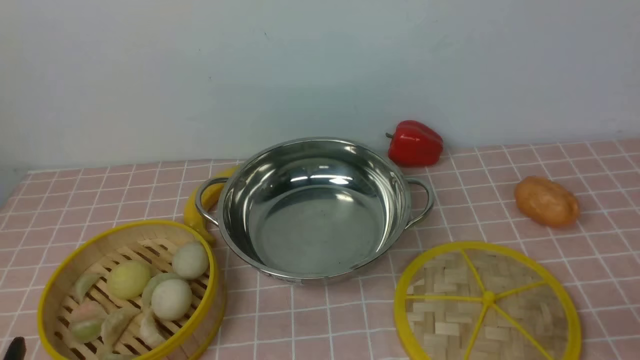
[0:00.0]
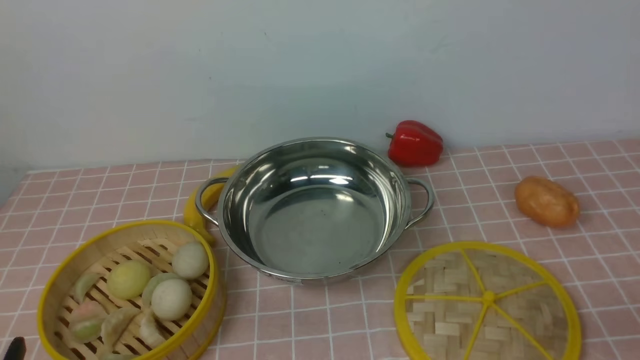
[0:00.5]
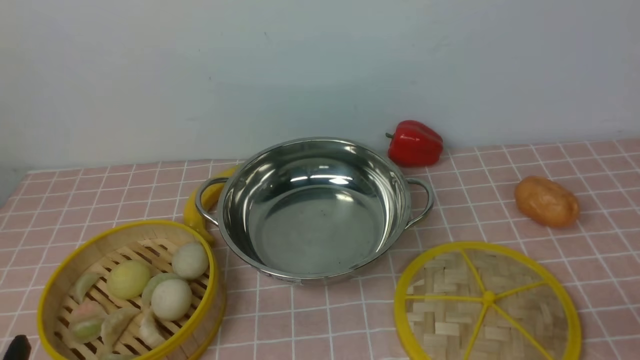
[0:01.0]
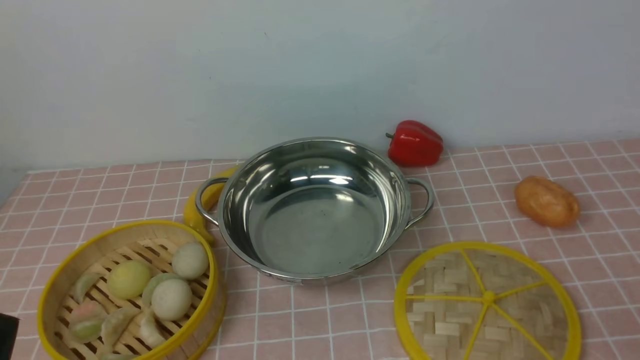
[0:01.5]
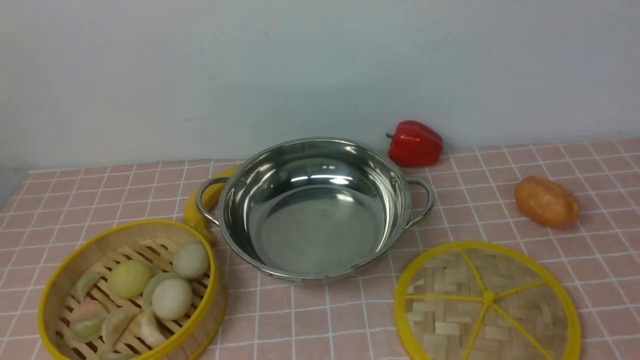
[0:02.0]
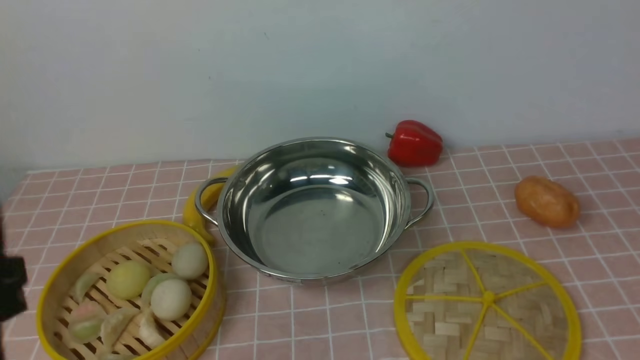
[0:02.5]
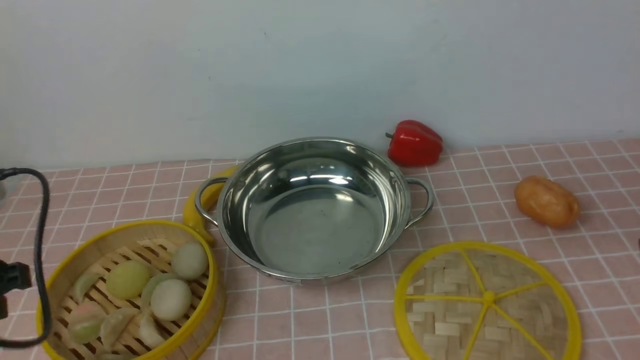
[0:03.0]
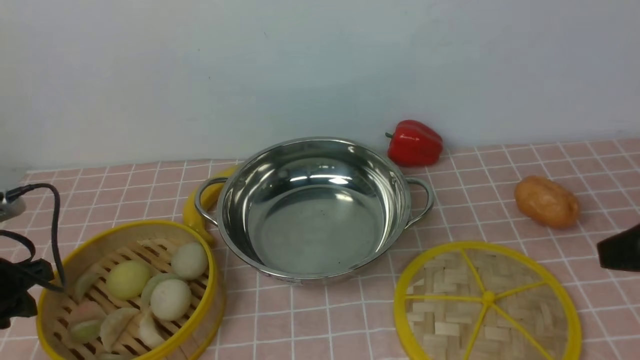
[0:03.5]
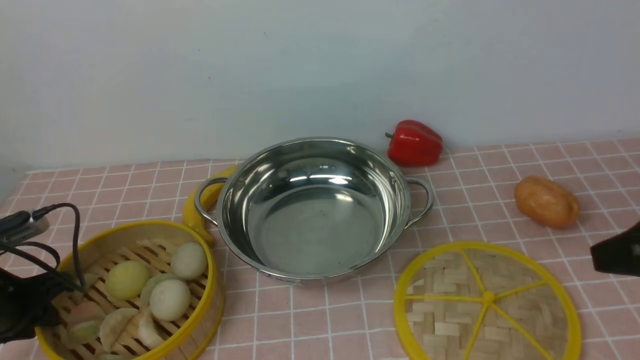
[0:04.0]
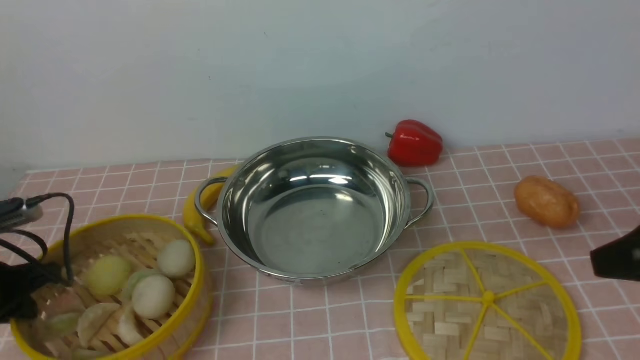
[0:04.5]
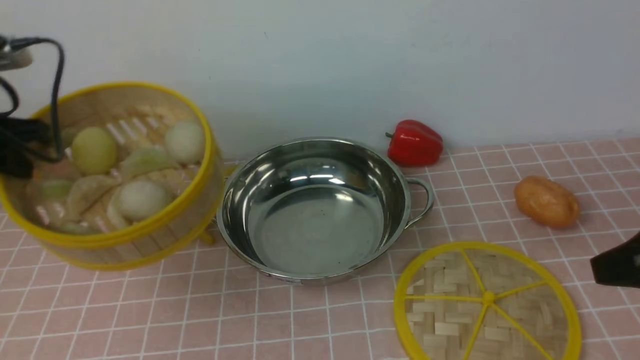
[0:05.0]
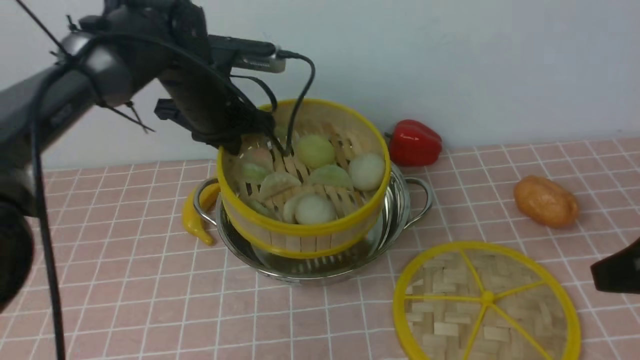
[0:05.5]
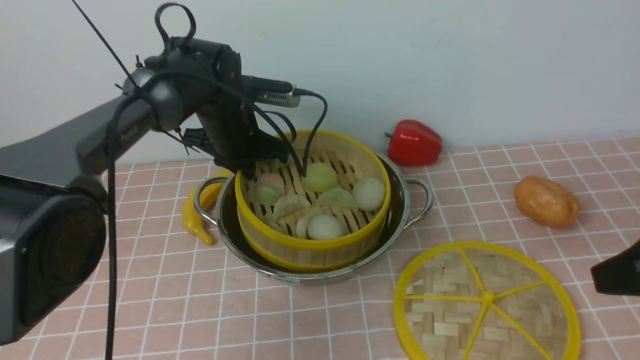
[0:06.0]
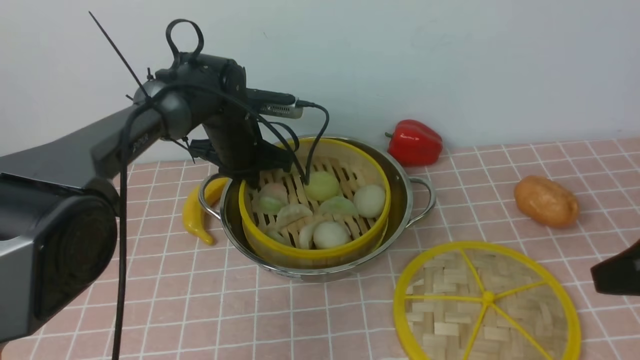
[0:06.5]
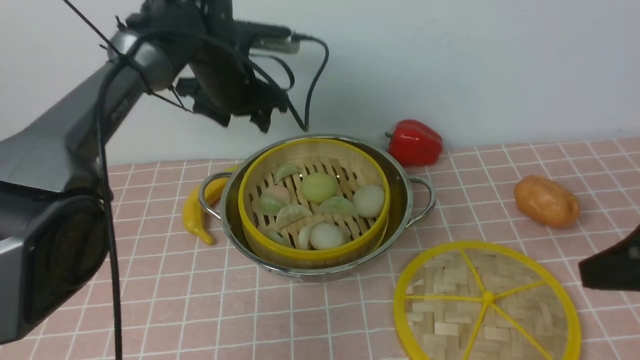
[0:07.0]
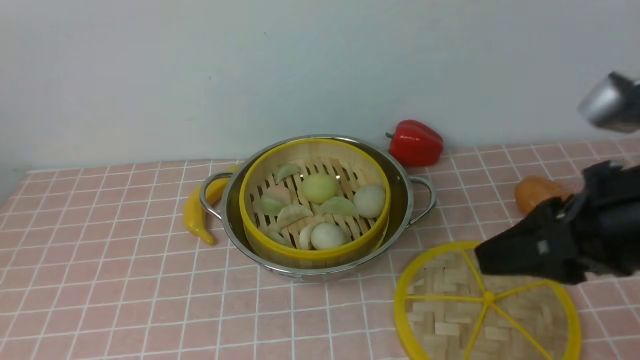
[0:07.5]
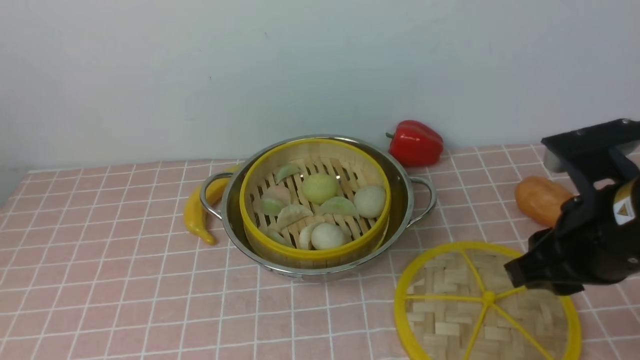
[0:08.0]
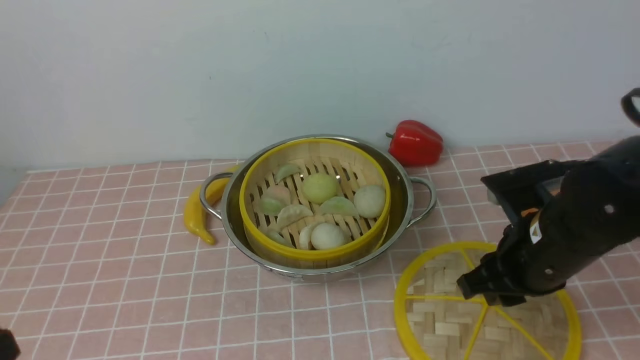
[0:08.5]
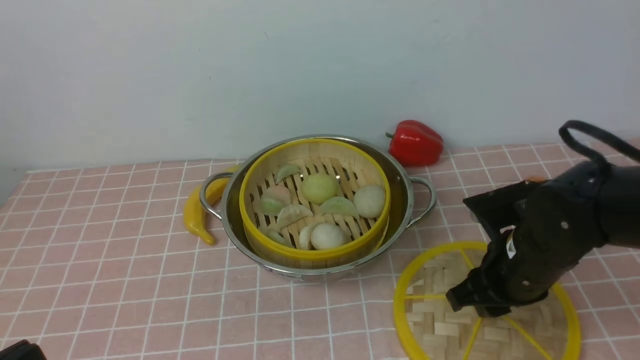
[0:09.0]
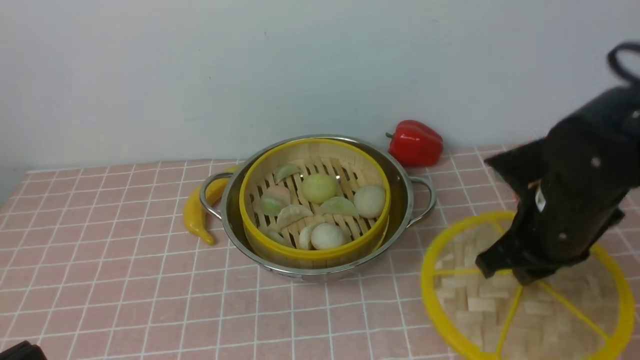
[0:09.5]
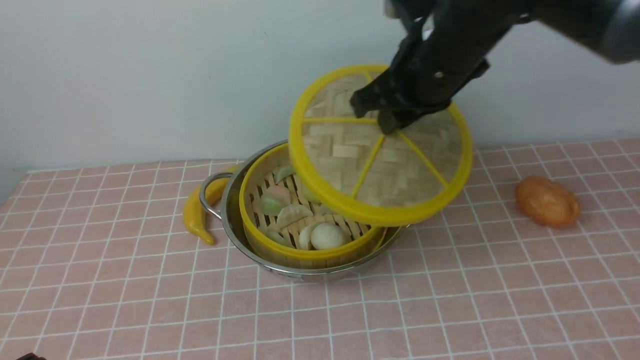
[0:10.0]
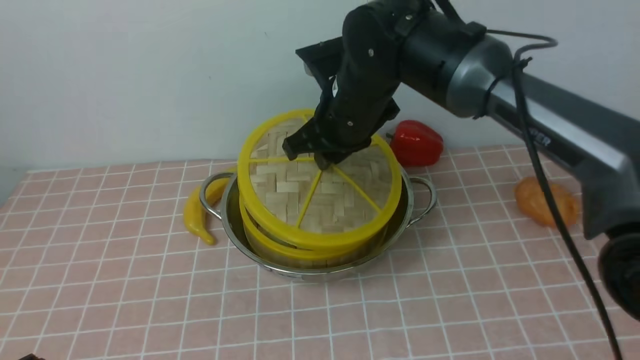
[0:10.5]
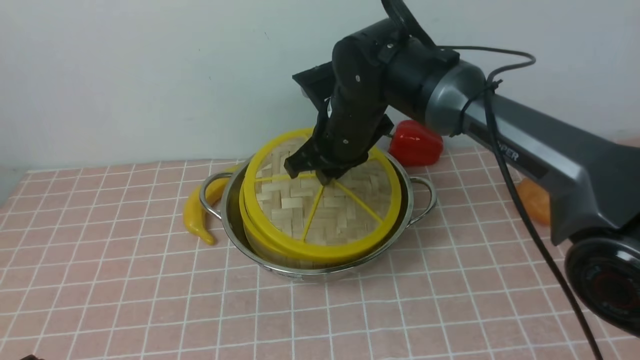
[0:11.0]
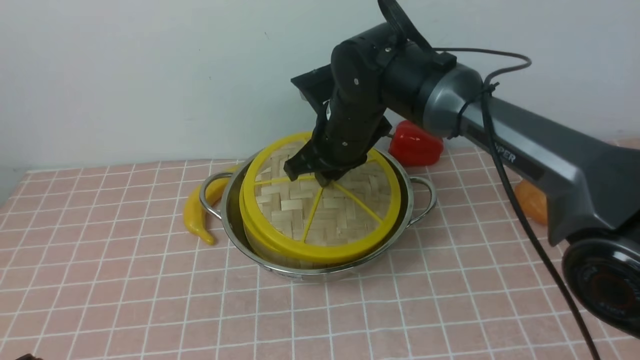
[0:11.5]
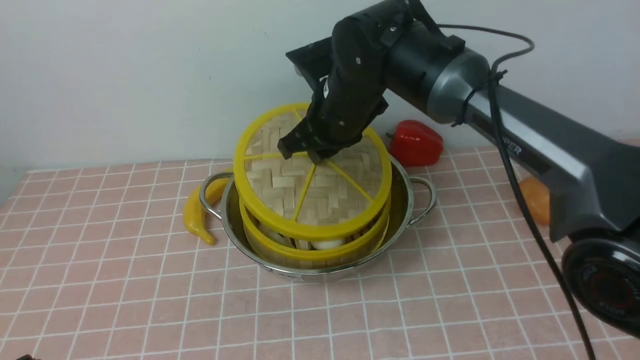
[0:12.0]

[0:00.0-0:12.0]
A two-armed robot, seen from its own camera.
Task of the whole recording: place the steamer in the pot on the pink tablecloth, and put the lid on the steamer.
Step, 0:00.0 to 0:04.5: use the left arm to lift the steamer closest to it.
Step, 0:05.0 to 0:06.5: use the left arm to put the steamer into the iron steamer pot in the middle.
Step, 0:07.0 to 0:09.0: use the right arm to lift the lid of the steamer.
0:02.0 to 0:04.0: The left gripper heads forward and downward, covering about 30 cm. Meanwhile the right gripper travels forward by some 15 cm.
0:04.0 to 0:06.0: The left gripper moves to the right and forward, roughly 30 cm, and closes up.
0:06.0 to 0:08.0: The left gripper travels backward and upward by some 50 cm, and opens and closes again, while the right gripper shifts approximately 5 cm to the left.
0:08.0 to 0:10.0: The right gripper shifts about 15 cm forward, to the left and upward; the left gripper goes roughly 30 cm downward.
0:10.0 to 0:12.0: The right gripper heads to the left, downward and forward, covering some 15 cm.

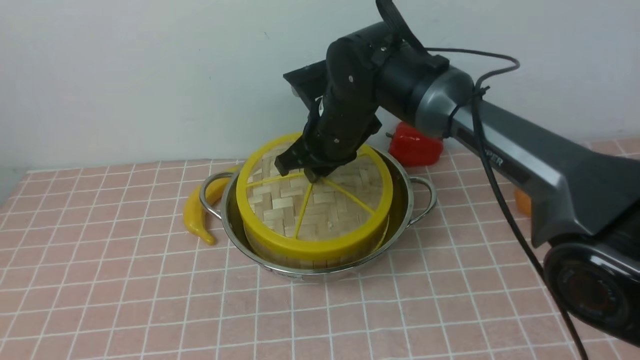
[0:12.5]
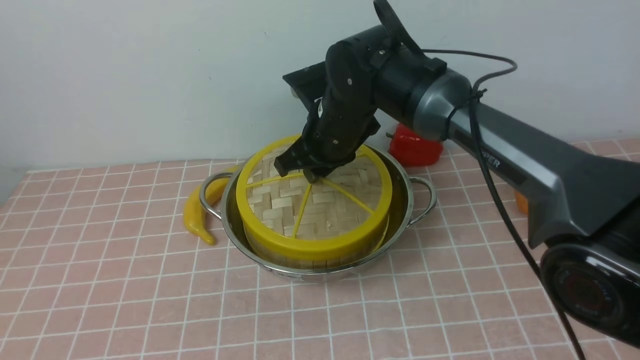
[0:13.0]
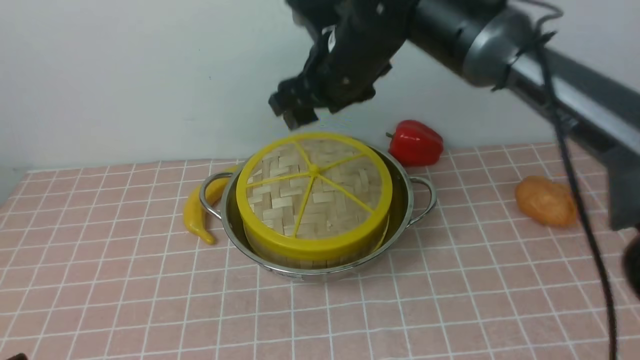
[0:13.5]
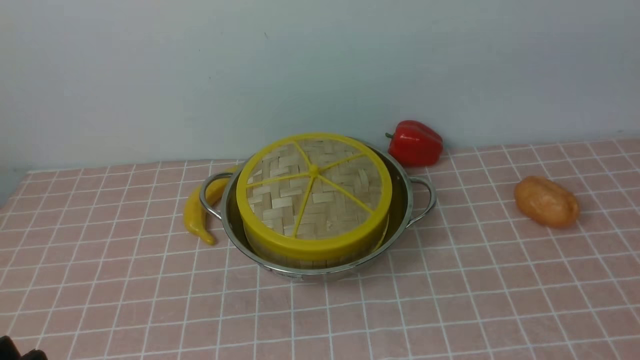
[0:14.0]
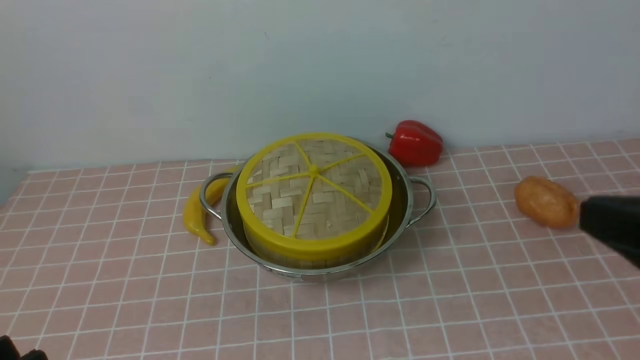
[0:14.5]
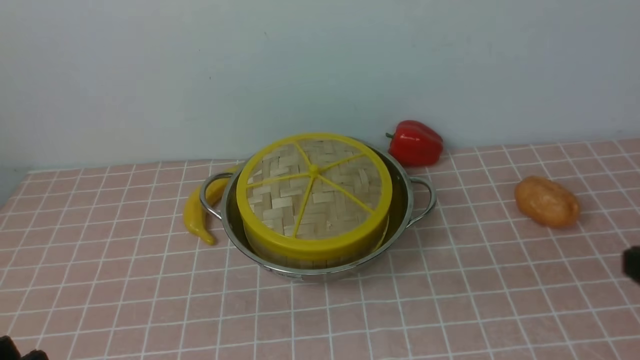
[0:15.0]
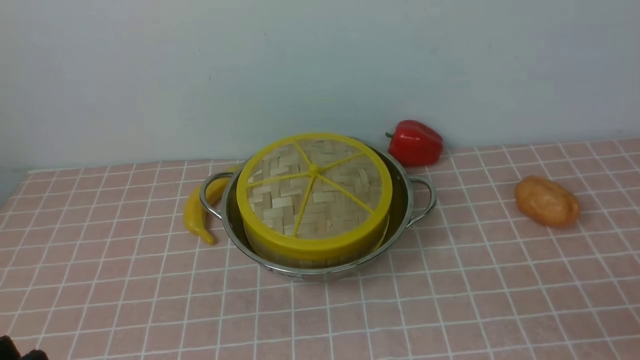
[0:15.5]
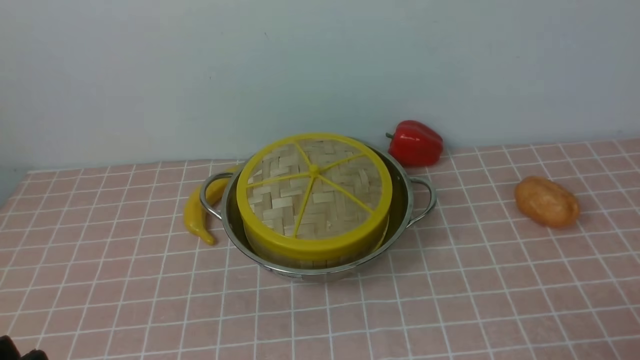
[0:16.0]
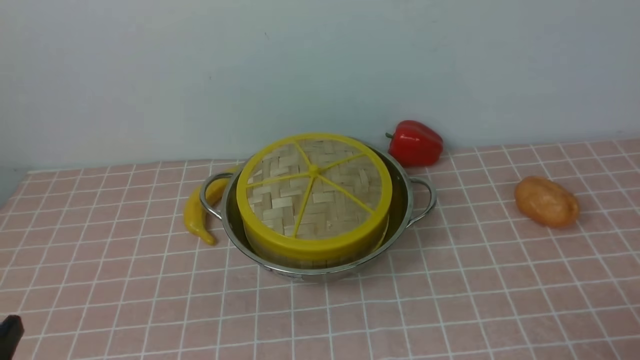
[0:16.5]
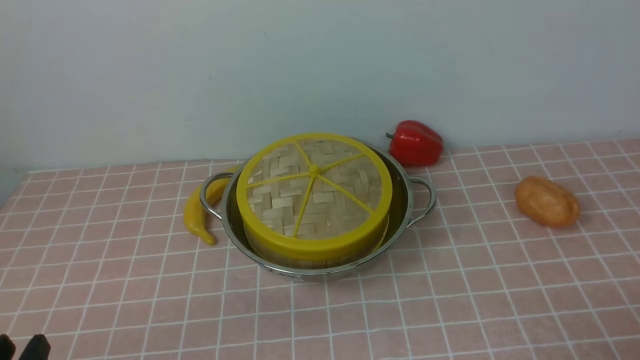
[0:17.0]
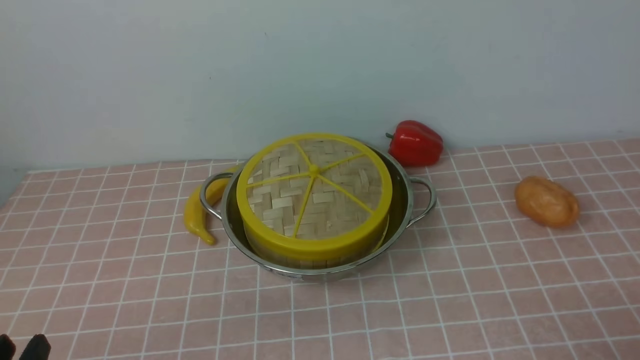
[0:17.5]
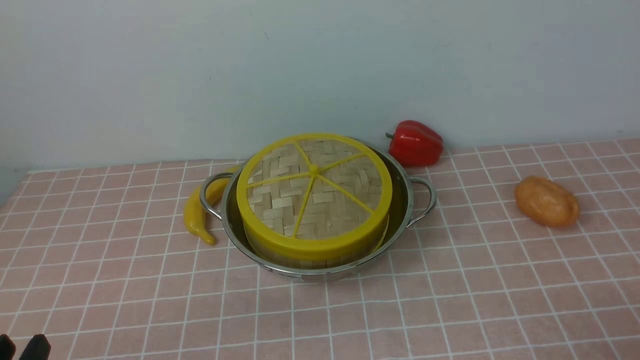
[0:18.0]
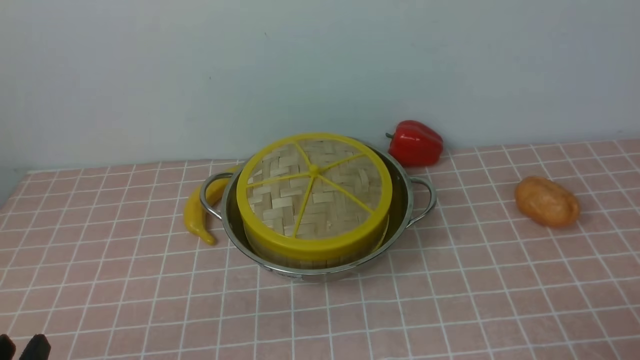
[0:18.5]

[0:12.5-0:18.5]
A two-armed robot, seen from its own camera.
Task of the whole recording: place the steamer in the pot on the pink tablecloth, and put the lid on the steamer.
0:12.5 to 0:14.5: The left gripper opens its fingers, while the right gripper is displaced backward, to the right and upward by about 40 cm, and opens, then closes again.
0:14.5 to 0:16.5: The right gripper heads downward and to the right, covering approximately 20 cm.

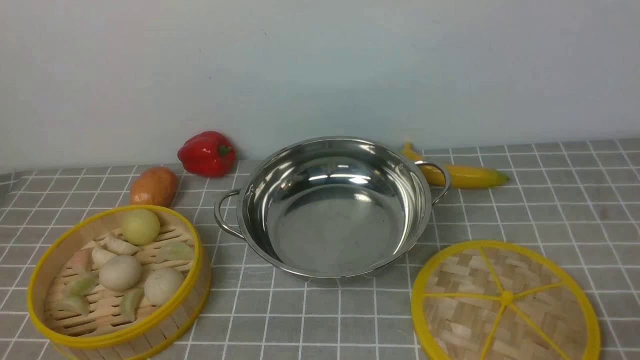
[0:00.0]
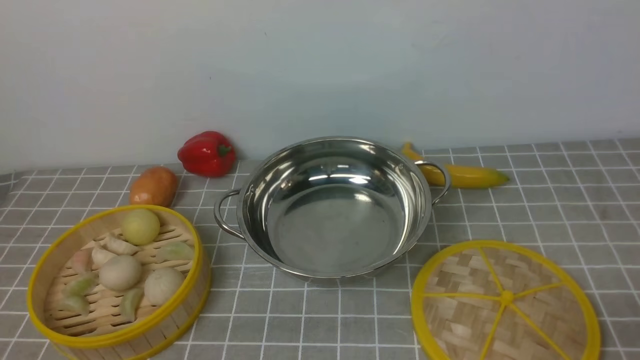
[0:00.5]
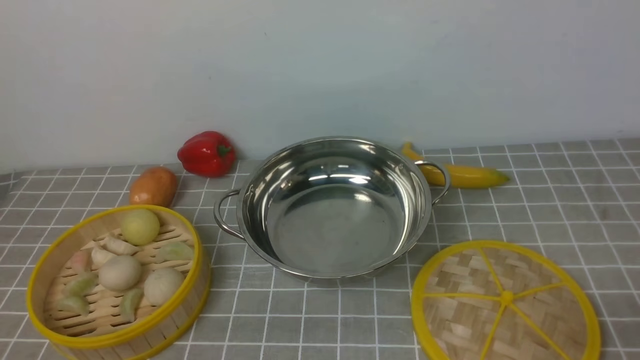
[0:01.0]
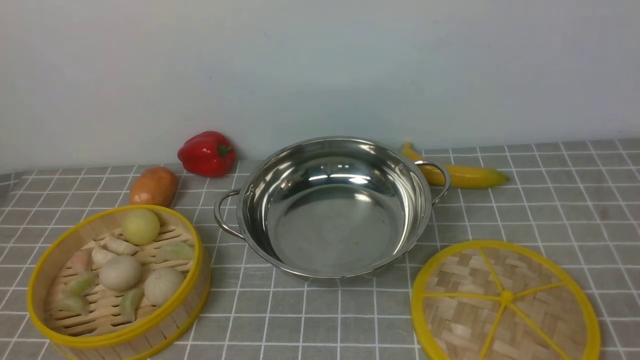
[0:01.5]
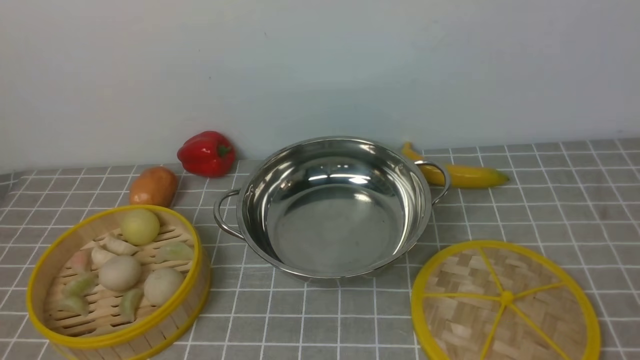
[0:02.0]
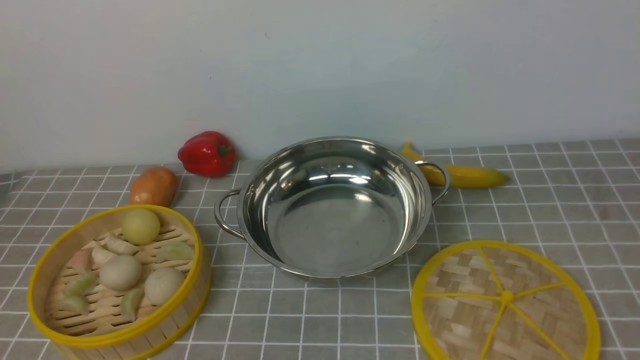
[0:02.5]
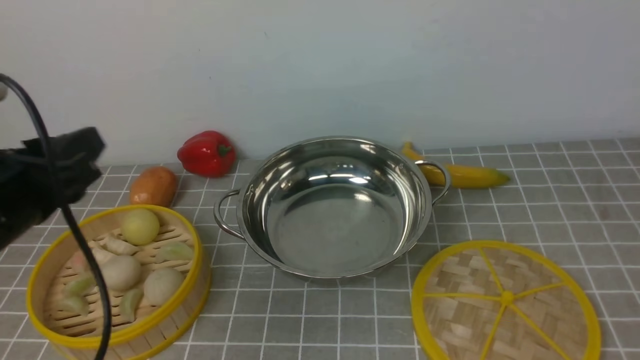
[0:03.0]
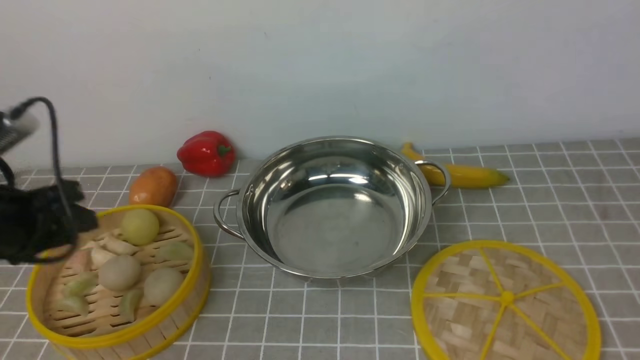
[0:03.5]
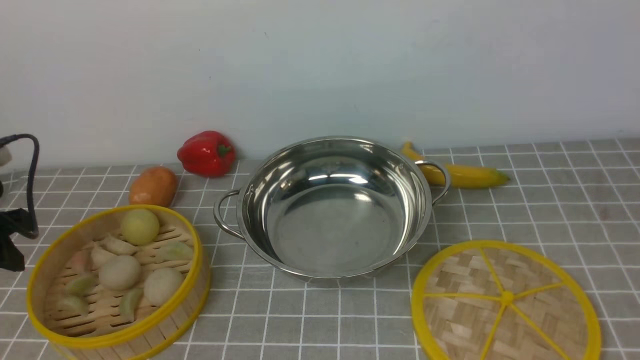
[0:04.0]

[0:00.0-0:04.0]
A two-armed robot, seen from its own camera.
Task of the whole recording: place the steamer in the pot on the grey tablecloth, and put the lid on the steamer.
0:02.0 to 0:04.0: The left gripper moves forward and to the left, some 30 cm.
